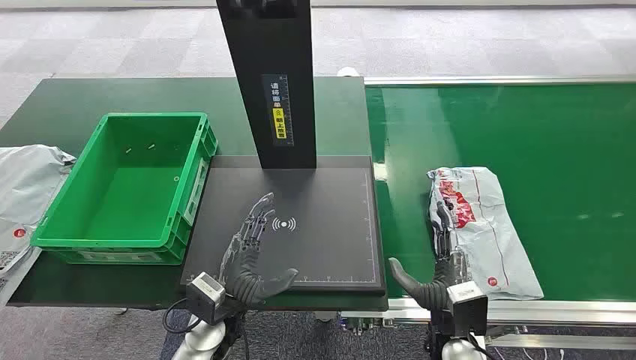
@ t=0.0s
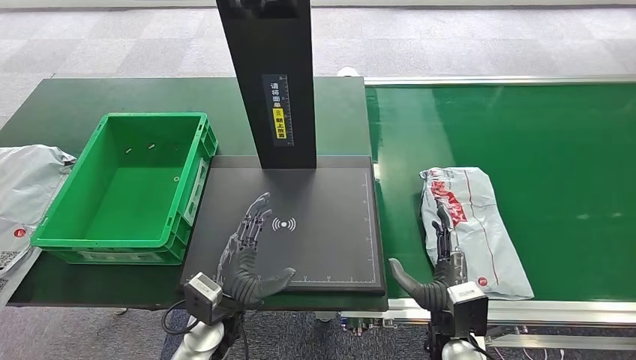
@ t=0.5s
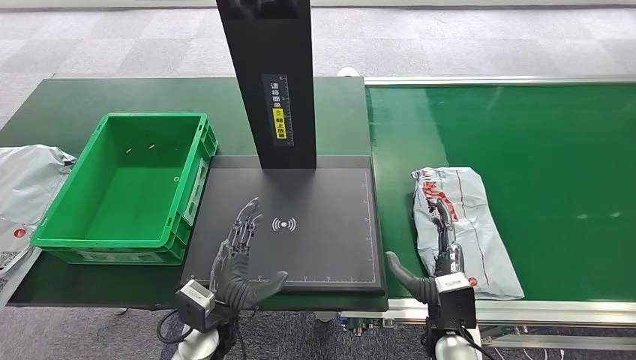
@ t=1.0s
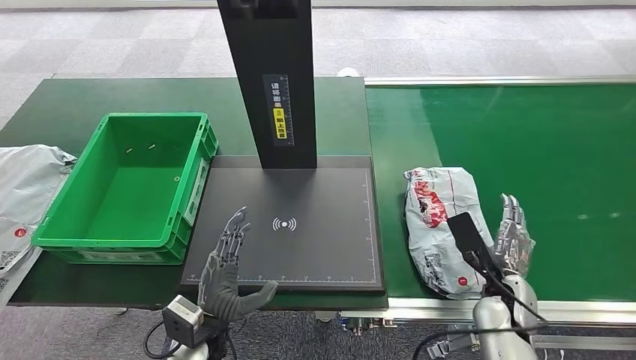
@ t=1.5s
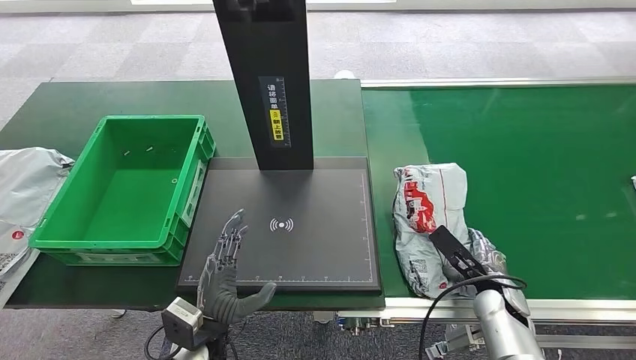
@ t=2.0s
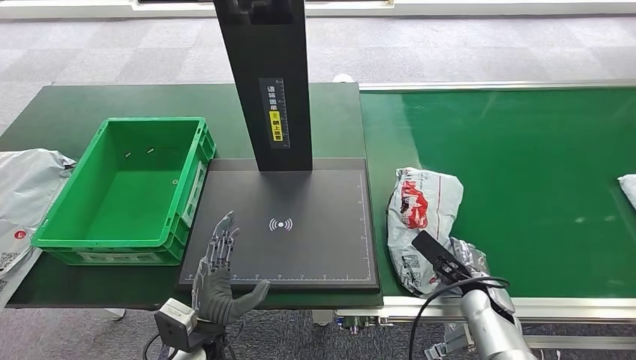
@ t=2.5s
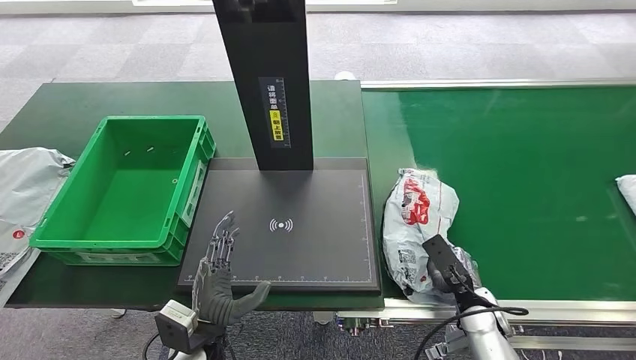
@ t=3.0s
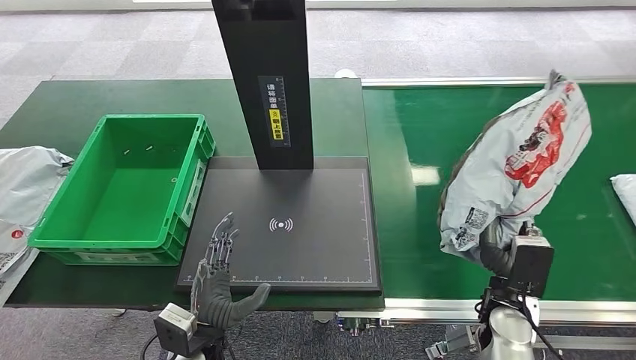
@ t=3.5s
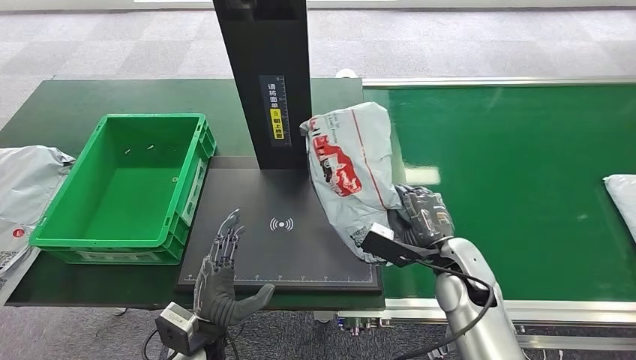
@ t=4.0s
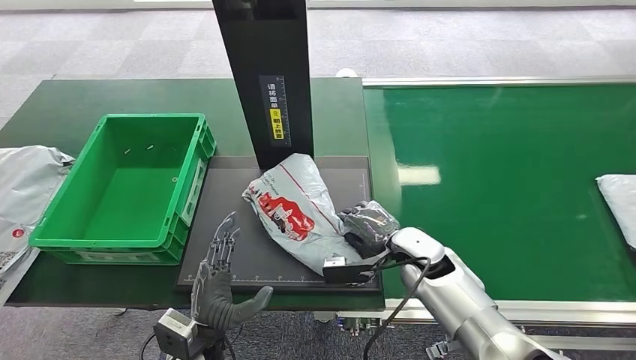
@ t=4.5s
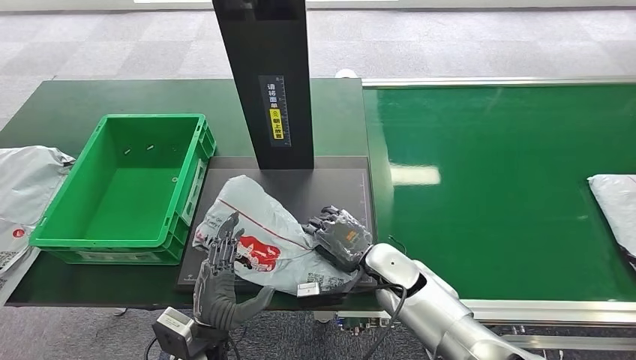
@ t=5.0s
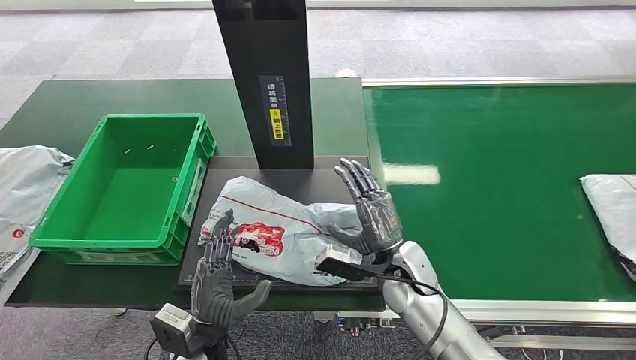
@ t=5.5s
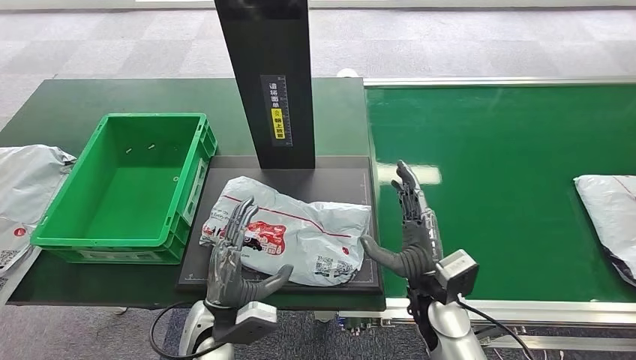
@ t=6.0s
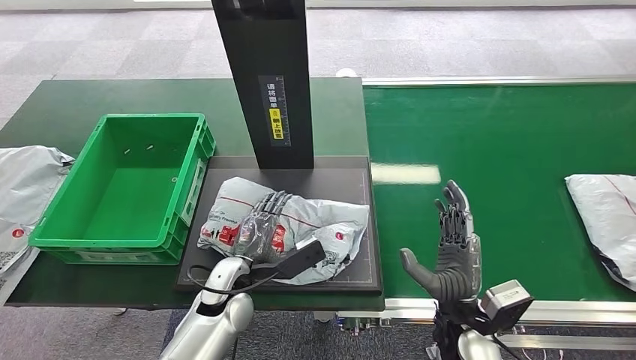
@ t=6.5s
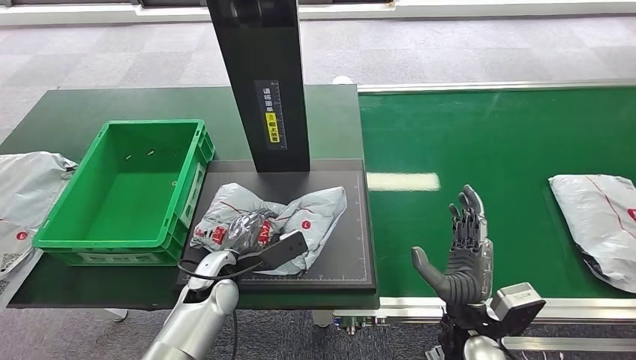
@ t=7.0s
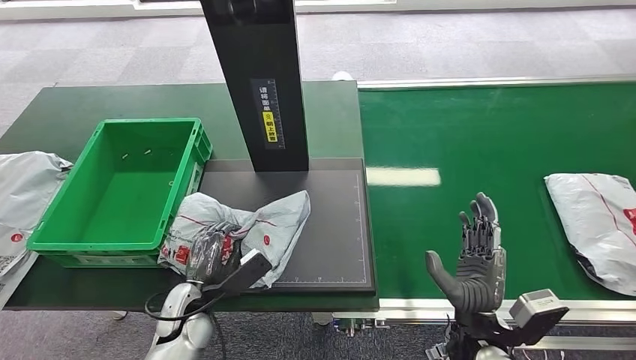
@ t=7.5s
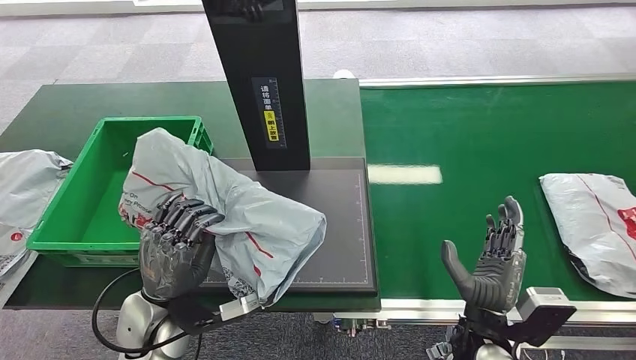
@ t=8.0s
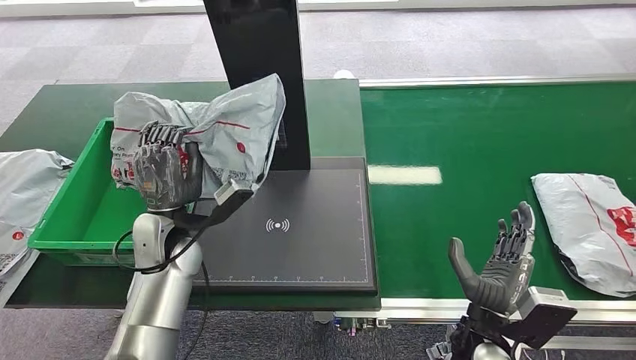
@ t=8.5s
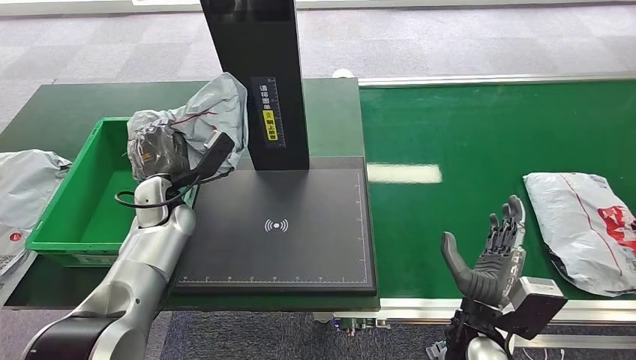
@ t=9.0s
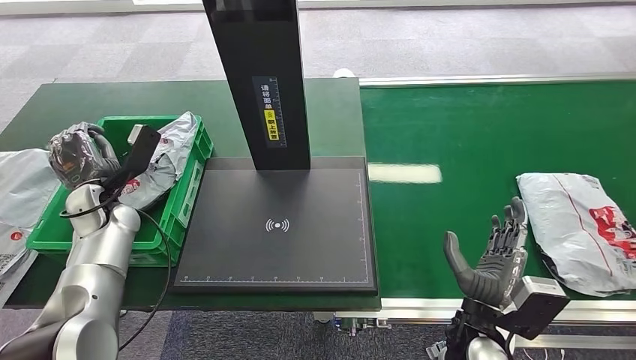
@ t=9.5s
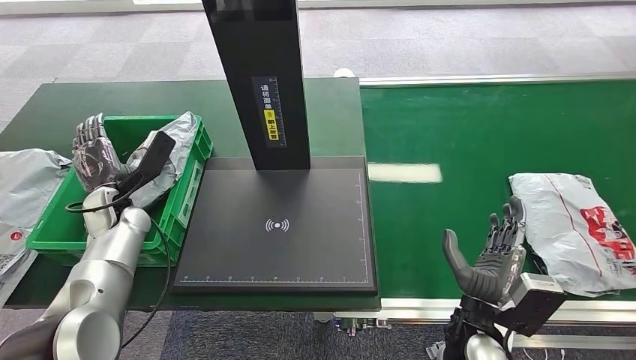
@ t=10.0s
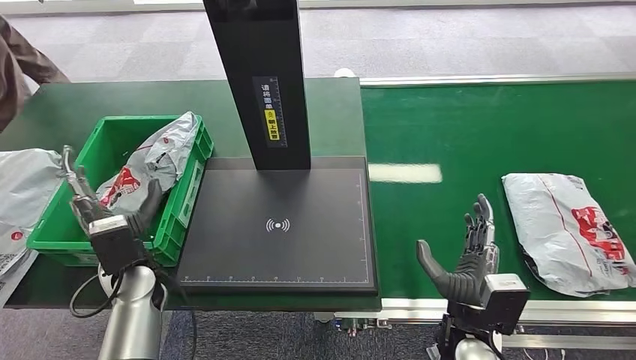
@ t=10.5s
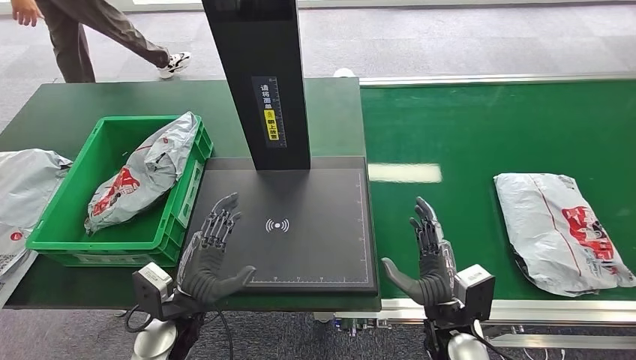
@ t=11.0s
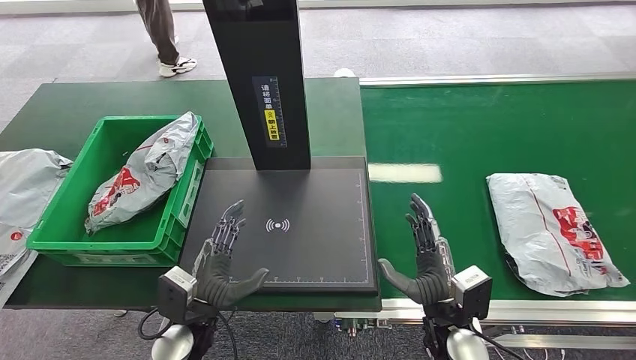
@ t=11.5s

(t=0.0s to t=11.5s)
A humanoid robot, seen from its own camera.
Step, t=0.0s - t=3.5s: Pick up the package from the conveyor belt.
Step, t=4.0s - t=6.0s: Place the package onto the inbound machine.
Step, t=6.5s - t=8.0s: Pick up the package from the inbound machine.
Step, t=8.5s - t=11.5s: Place the package into the parcel locker.
t=2.0s - t=4.0s: The right hand heads upward and to the left, covering roughly 15 cm.

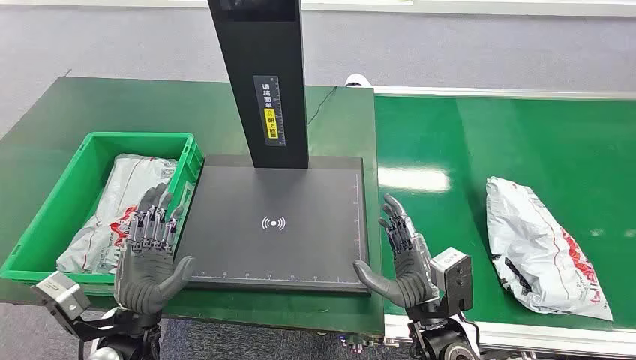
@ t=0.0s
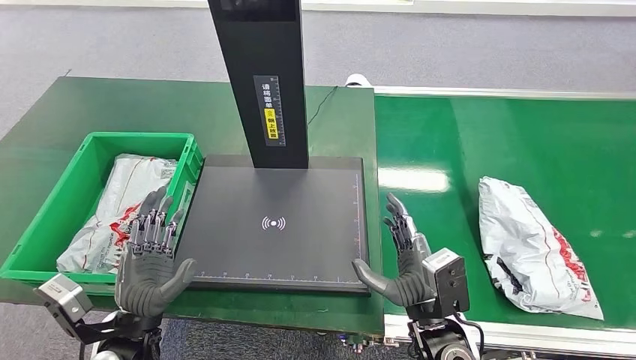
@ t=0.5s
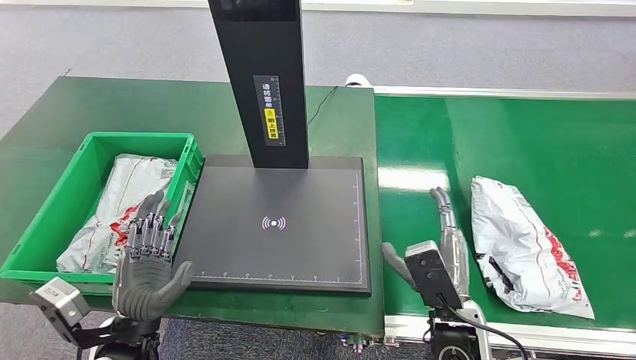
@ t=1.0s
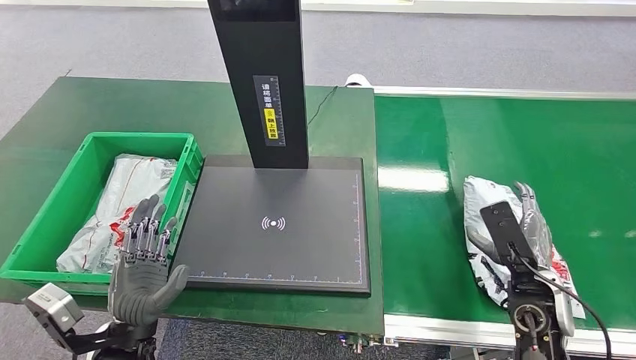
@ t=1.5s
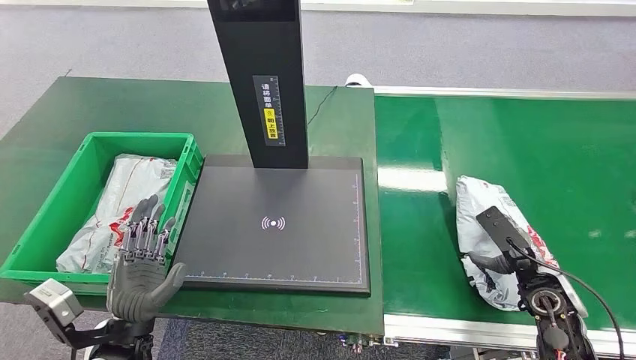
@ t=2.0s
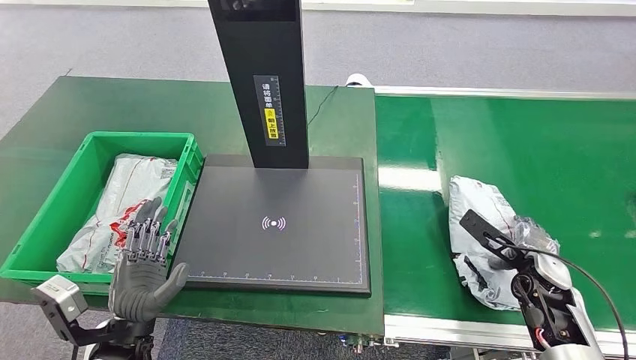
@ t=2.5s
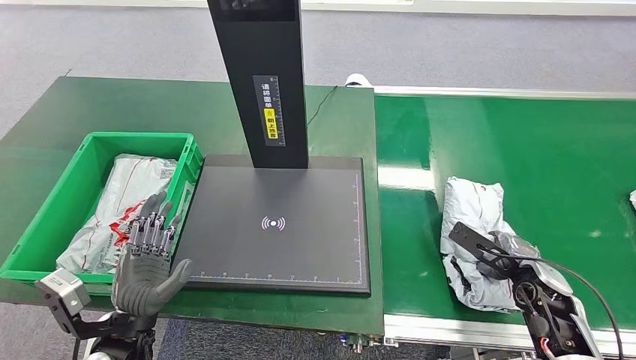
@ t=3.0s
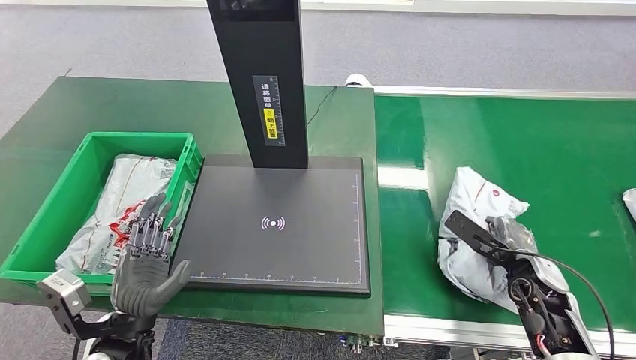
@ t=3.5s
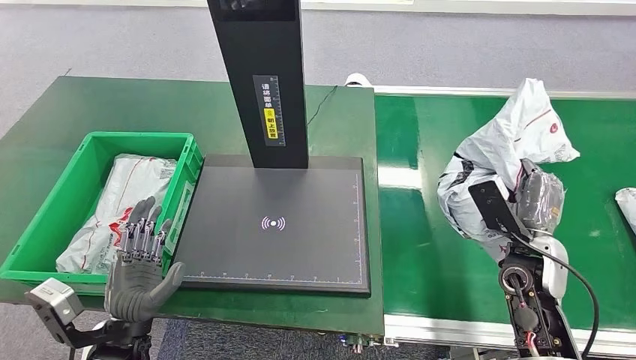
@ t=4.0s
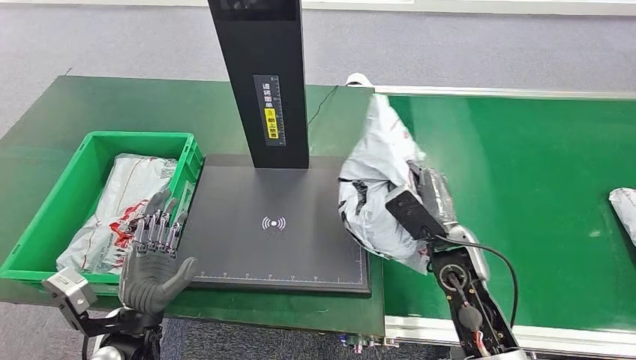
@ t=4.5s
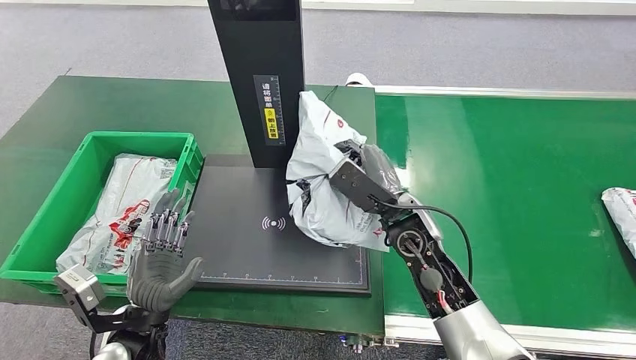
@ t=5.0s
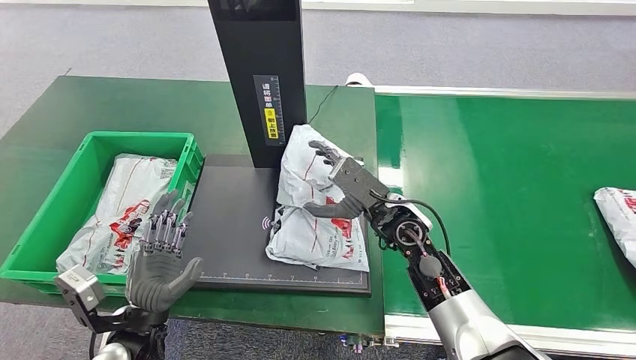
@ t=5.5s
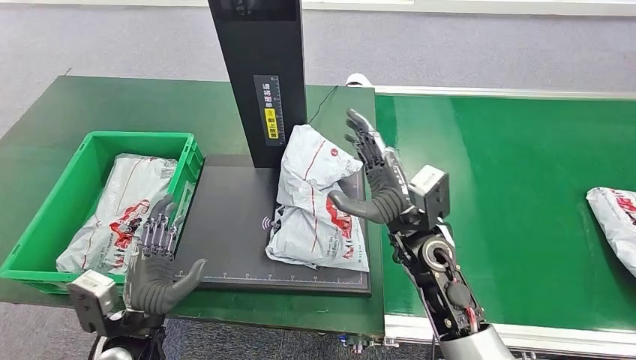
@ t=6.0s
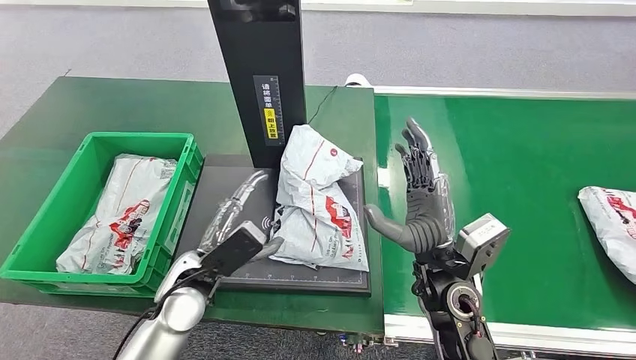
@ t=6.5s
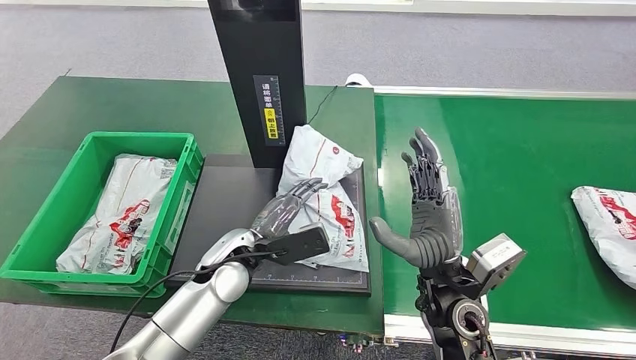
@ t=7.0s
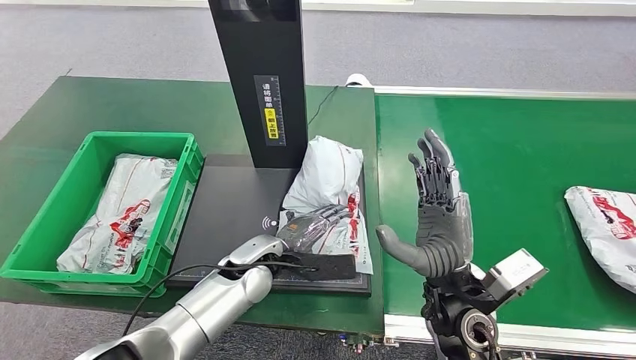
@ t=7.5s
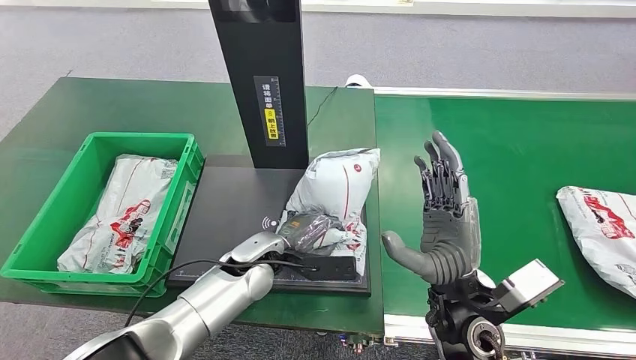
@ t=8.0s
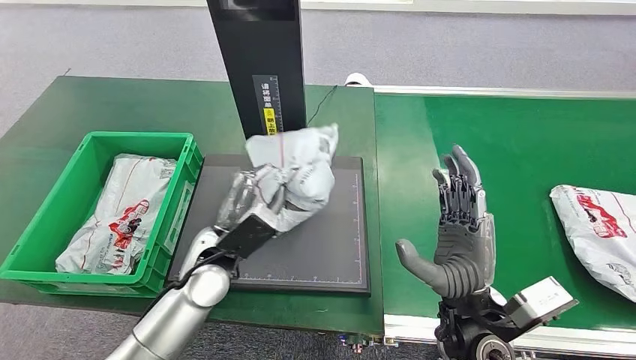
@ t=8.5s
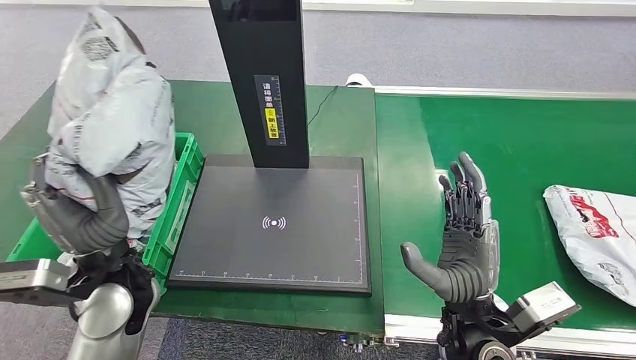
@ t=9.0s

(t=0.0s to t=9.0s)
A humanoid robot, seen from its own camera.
Step, t=0.0s - t=4.0s: Pick up the package from the conveyor belt.
Step, t=4.5s - t=6.0s: Place the package onto the inbound machine.
Step, t=7.0s - t=8.5s: Pick up the package from the inbound machine.
